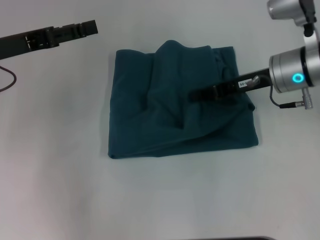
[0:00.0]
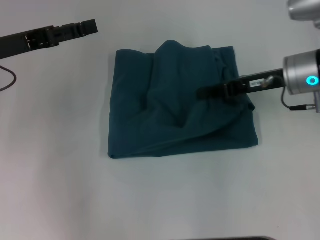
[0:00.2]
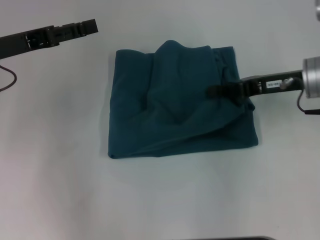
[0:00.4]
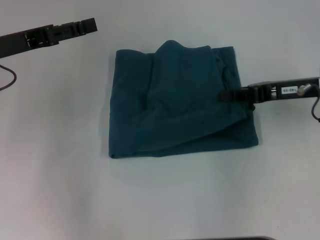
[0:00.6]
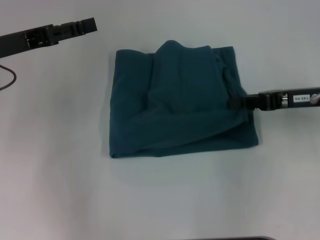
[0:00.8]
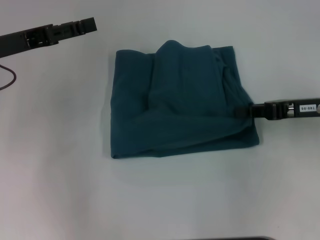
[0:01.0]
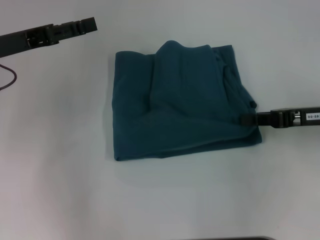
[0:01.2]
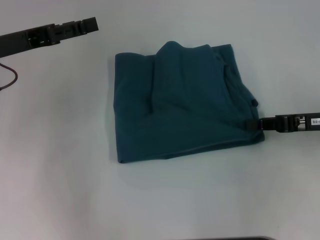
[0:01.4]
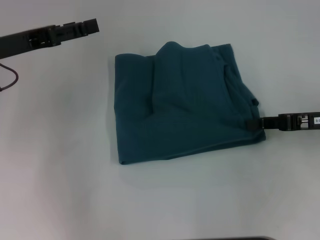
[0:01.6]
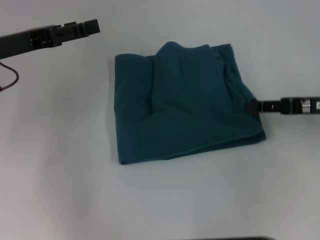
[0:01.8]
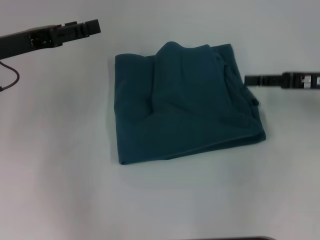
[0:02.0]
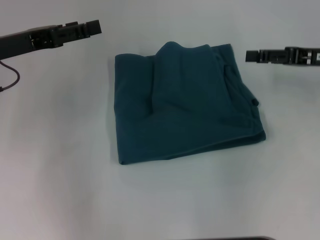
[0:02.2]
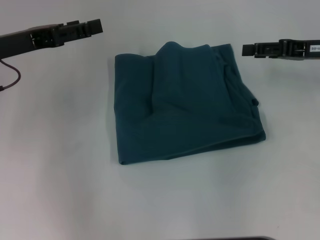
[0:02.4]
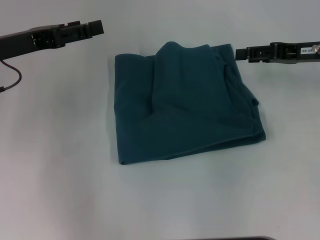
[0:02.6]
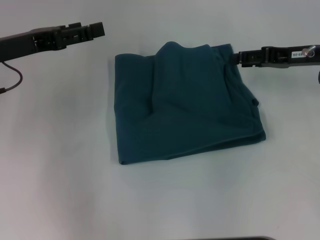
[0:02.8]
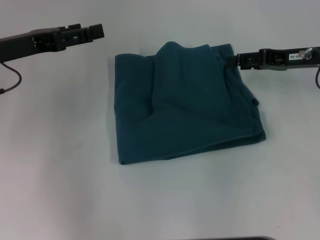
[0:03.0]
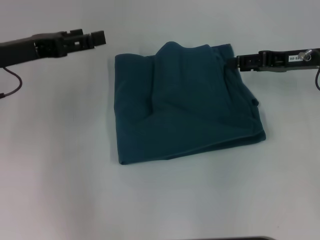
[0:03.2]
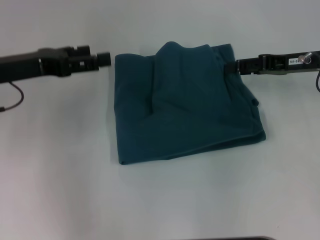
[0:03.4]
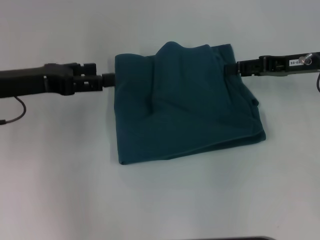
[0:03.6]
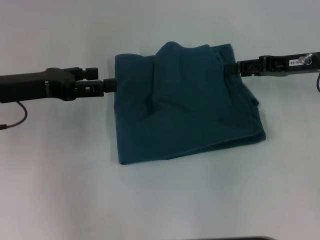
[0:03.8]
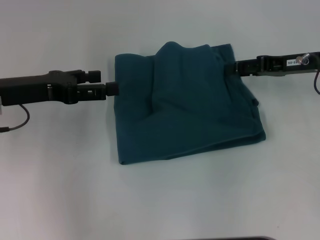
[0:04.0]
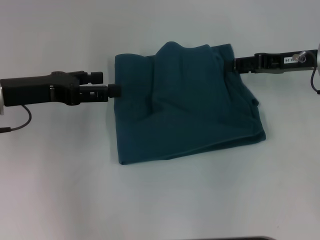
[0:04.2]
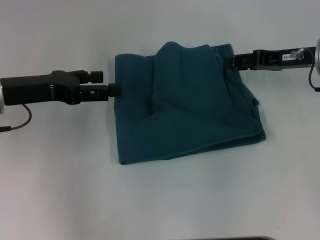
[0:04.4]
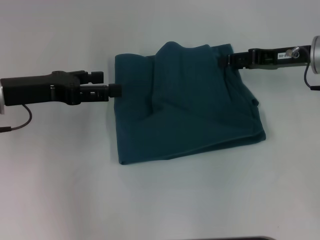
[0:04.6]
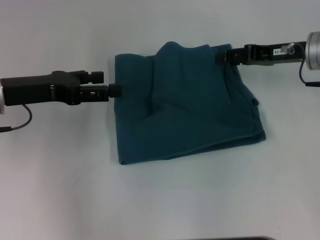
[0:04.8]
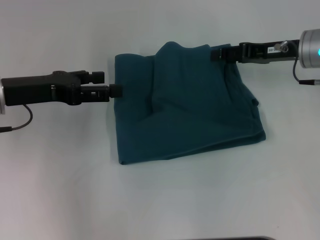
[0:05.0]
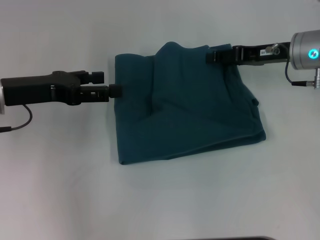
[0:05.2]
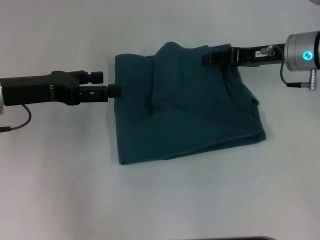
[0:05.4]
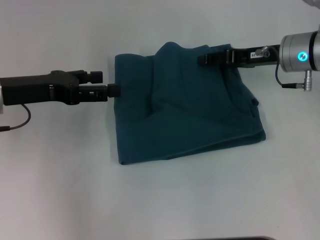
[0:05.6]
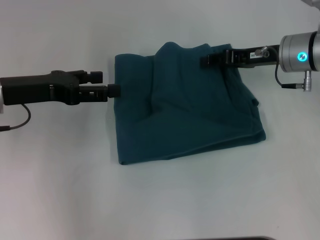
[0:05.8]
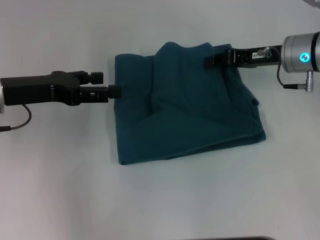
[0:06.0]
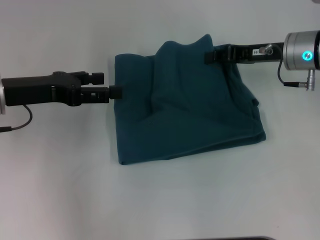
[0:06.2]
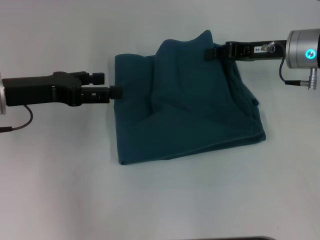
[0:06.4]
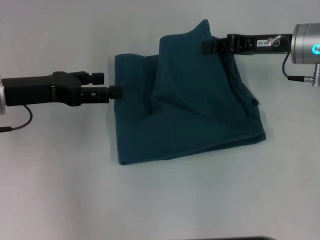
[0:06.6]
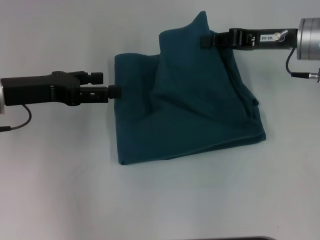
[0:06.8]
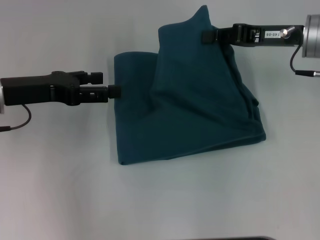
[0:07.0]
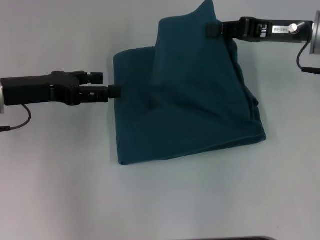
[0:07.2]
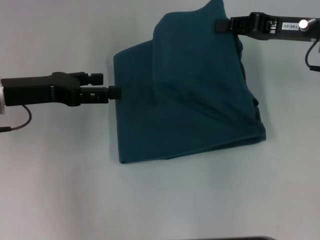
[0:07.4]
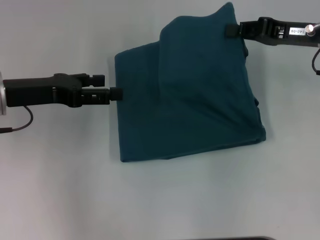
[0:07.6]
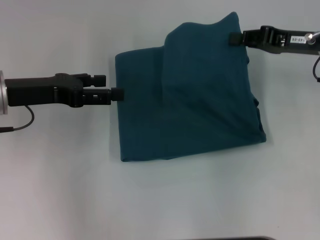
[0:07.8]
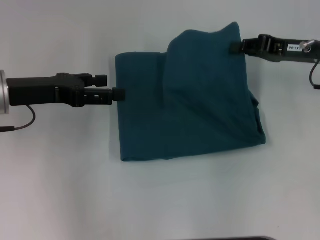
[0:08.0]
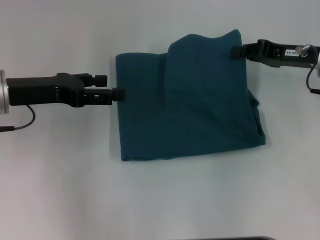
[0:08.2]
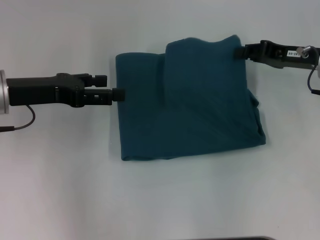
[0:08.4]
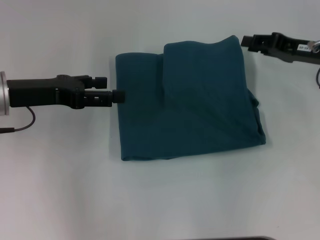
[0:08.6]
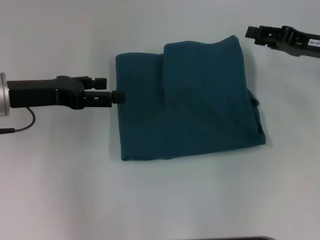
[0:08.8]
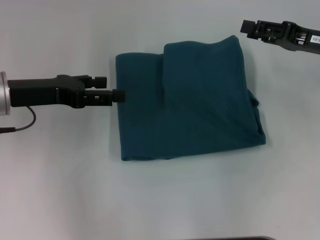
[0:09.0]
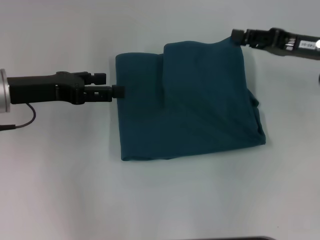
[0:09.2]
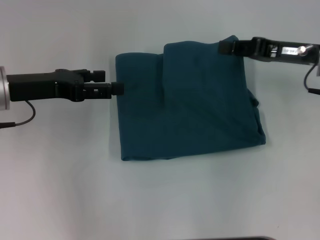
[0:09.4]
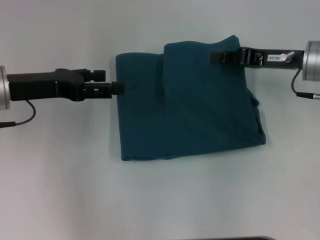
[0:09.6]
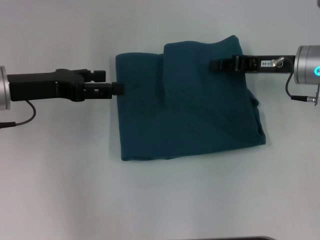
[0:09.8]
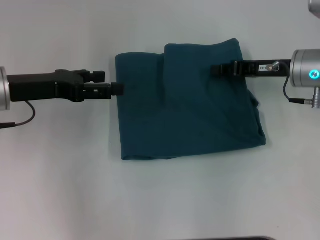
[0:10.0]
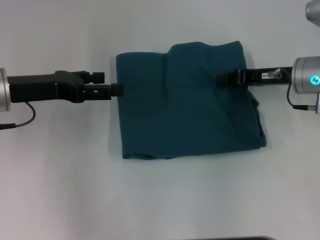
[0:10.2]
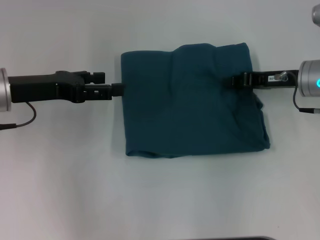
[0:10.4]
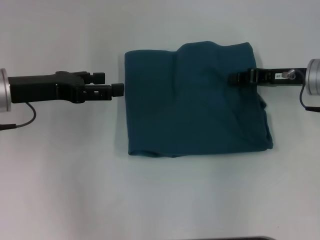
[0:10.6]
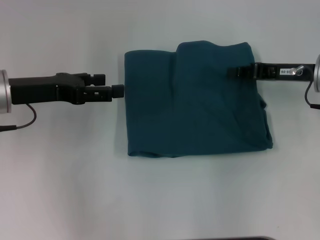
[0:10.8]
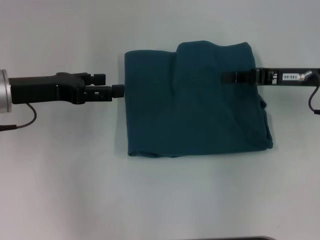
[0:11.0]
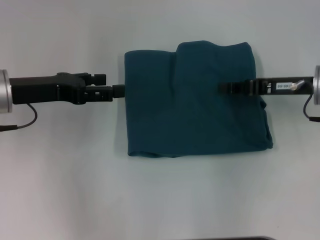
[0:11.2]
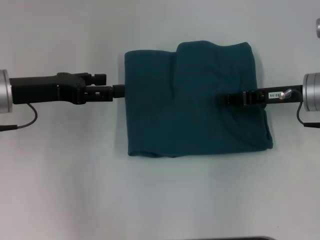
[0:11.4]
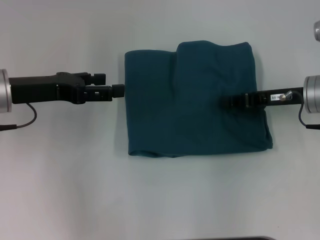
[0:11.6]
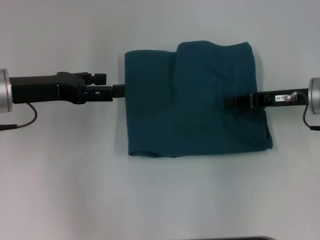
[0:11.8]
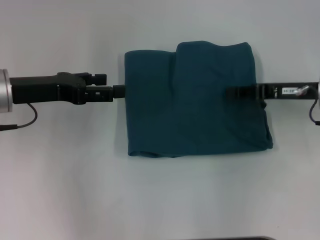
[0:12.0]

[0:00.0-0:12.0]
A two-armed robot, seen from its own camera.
0:00.0 to 0:01.6: The right gripper is displaced to the right and backward by about 15 cm.
0:01.6 to 0:03.0: The right gripper shifts approximately 10 cm forward, and opens.
0:03.0 to 0:06.0: There are only small adjustments of the grippers.
0:06.0 to 0:07.6: The right gripper moves about 5 cm.
0:07.6 to 0:09.0: The right gripper opens its fingers.
0:09.0 to 0:10.4: The right gripper ends up approximately 5 cm from where it was, and closes its fingers.
0:10.4 to 0:12.0: The grippers make only small movements.

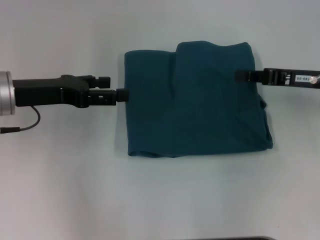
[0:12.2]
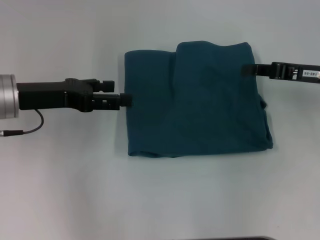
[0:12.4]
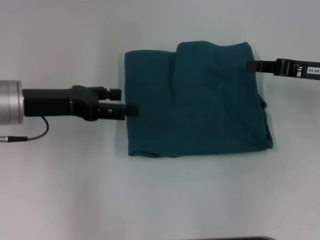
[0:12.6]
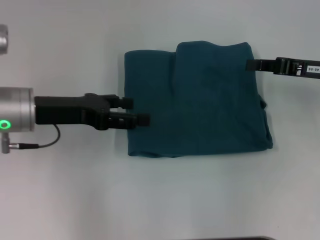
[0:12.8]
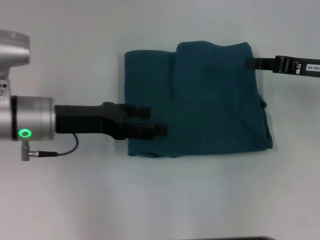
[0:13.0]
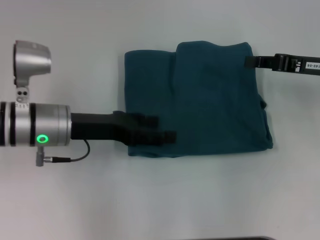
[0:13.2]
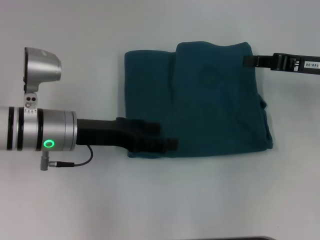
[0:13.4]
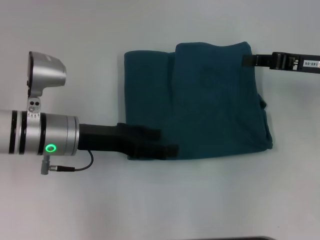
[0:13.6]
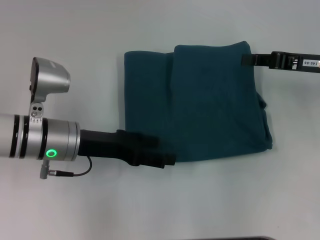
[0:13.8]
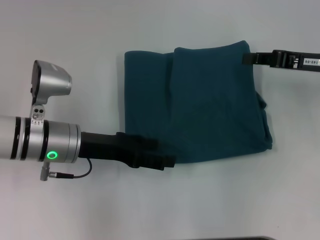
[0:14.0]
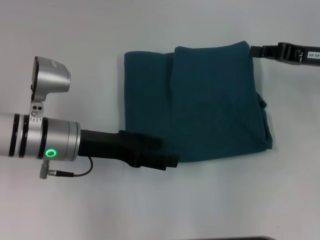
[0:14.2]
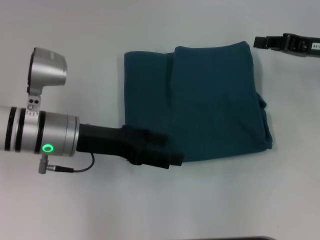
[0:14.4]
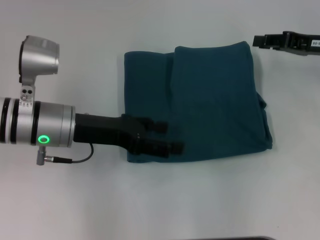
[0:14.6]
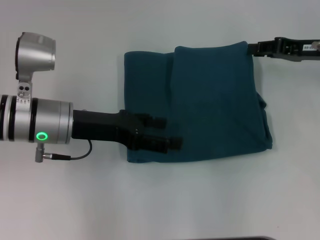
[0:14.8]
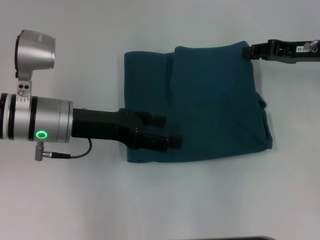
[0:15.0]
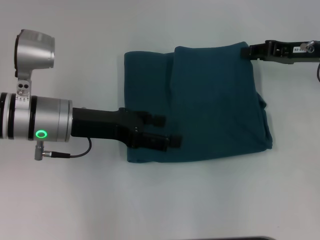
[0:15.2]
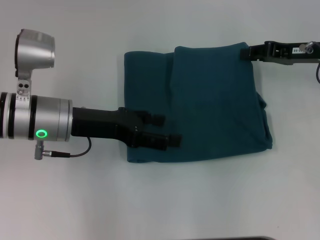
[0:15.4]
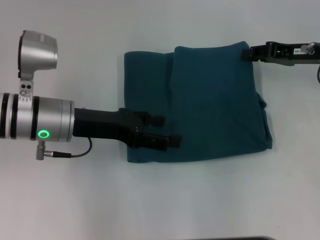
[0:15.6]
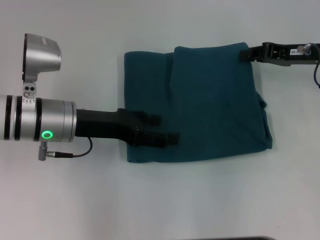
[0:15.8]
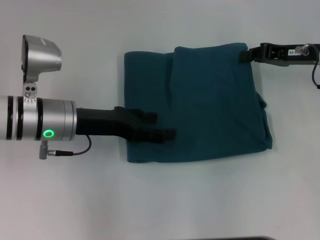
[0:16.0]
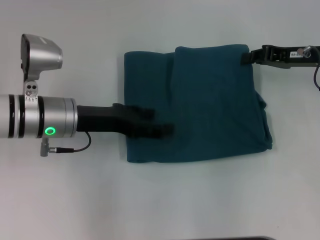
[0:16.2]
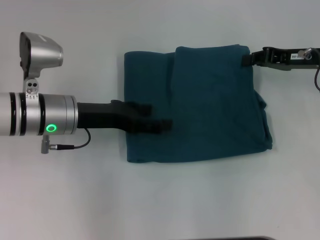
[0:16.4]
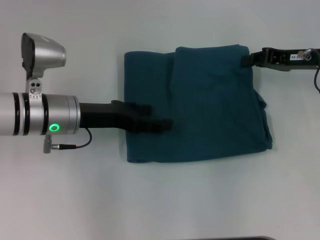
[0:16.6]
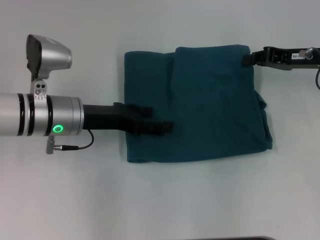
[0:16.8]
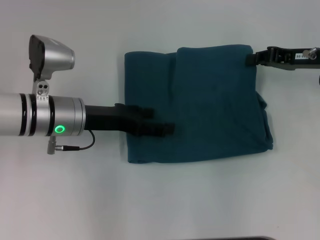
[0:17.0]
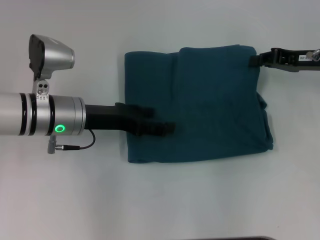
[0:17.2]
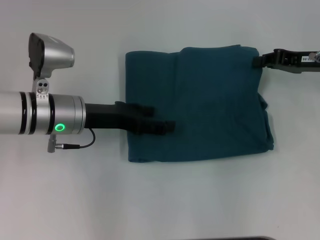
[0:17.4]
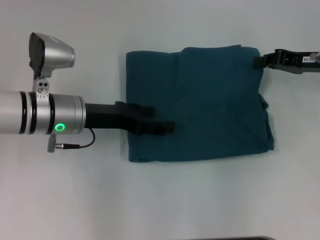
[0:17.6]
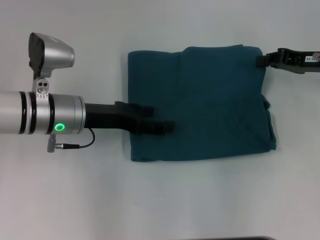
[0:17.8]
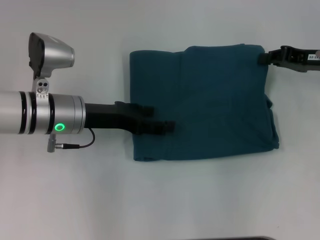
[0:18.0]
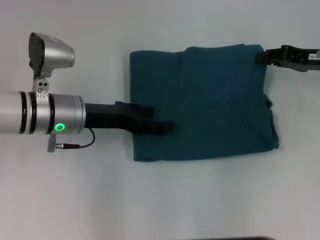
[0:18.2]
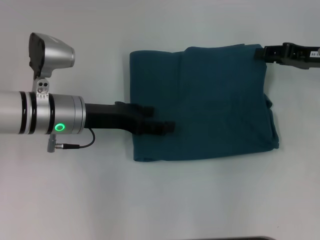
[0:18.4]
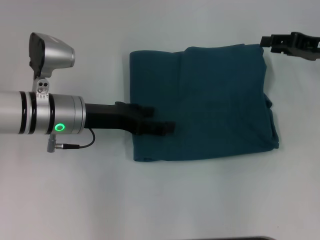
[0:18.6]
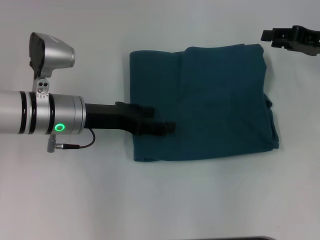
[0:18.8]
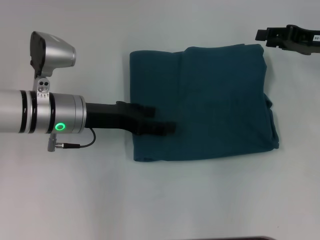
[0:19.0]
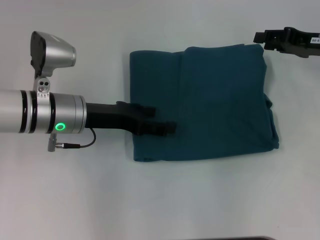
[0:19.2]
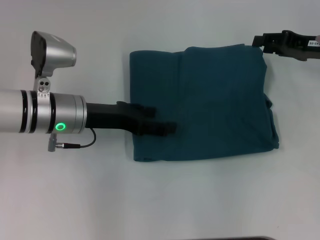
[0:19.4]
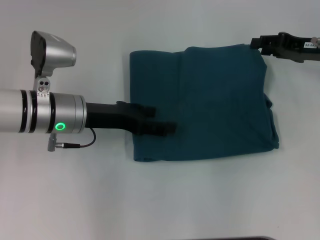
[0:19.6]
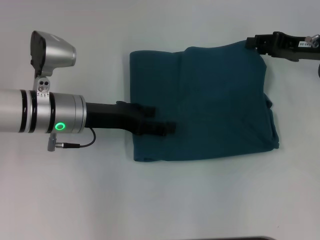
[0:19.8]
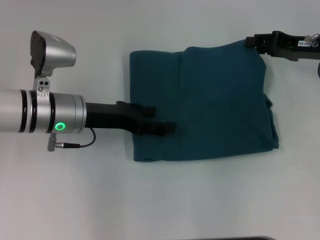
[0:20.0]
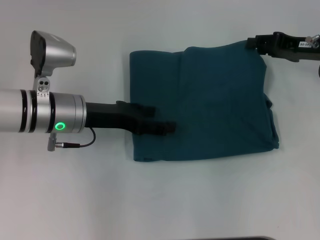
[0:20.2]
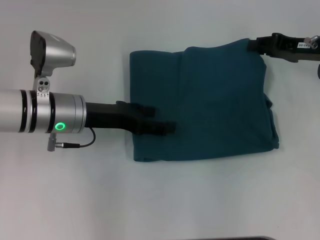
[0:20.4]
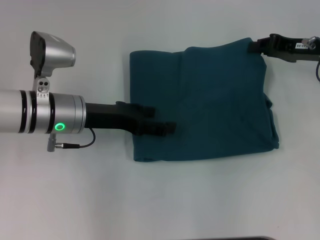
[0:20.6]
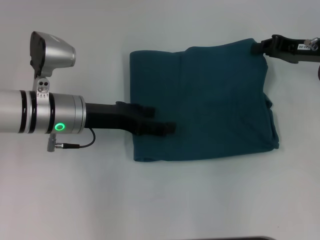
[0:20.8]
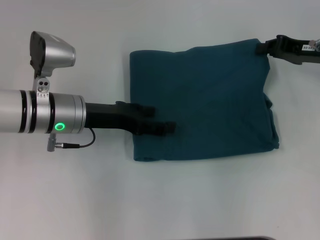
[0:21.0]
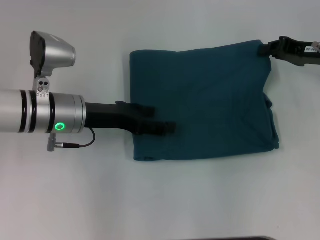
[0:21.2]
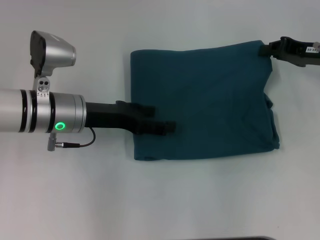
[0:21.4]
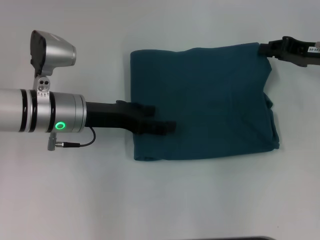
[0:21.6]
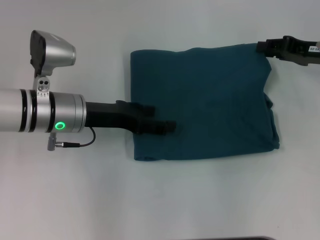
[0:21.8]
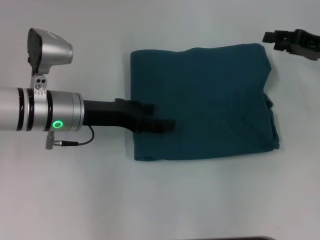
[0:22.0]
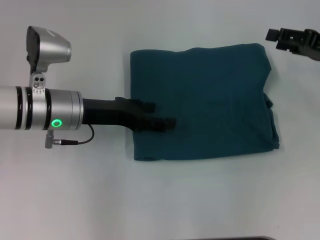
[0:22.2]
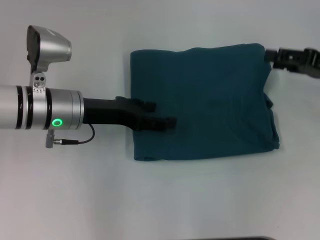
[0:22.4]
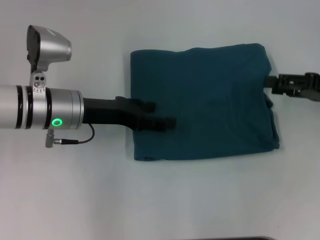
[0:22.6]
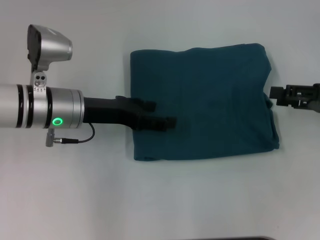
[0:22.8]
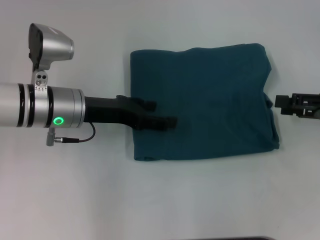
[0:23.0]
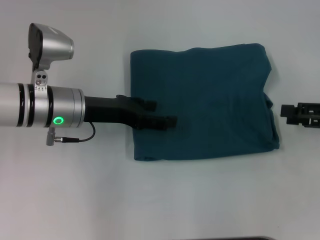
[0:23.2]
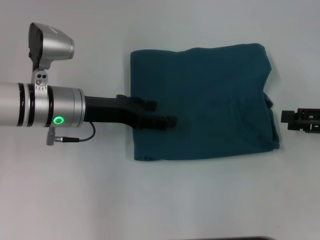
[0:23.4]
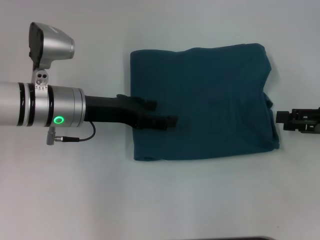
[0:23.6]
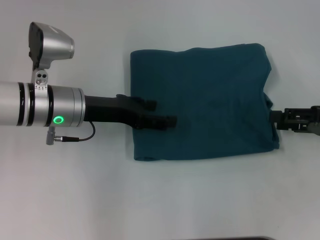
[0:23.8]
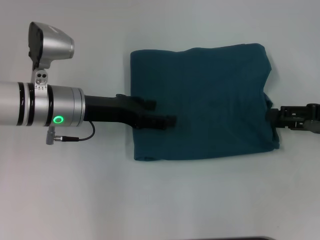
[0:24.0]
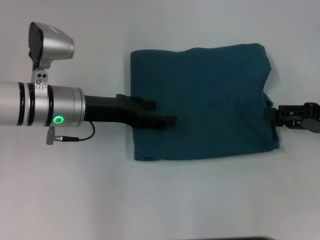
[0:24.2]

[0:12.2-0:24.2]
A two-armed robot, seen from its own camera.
0:12.2 to 0:13.8: The left gripper is displaced to the right and downward by about 10 cm.
0:13.8 to 0:18.2: There are only small adjustments of the grippers.
0:18.2 to 0:19.8: The grippers make only small movements.
0:19.8 to 0:21.2: The right gripper closes.
0:21.2 to 0:22.6: The right gripper heads backward, covering approximately 5 cm, and opens its fingers.
0:22.6 to 0:24.2: The grippers stay close to where they were, moving slightly.
